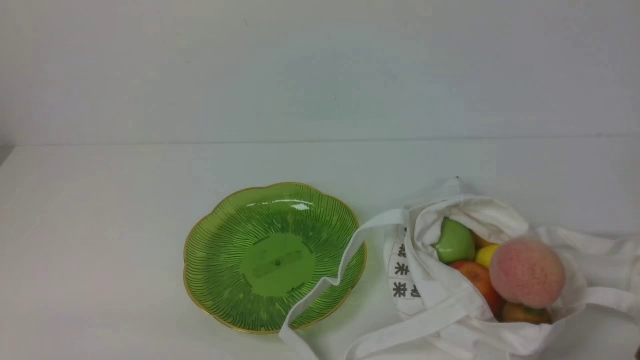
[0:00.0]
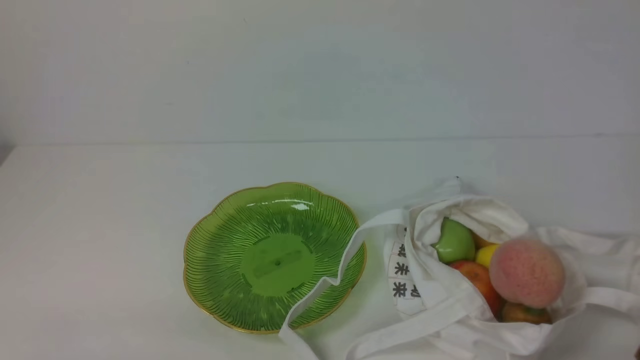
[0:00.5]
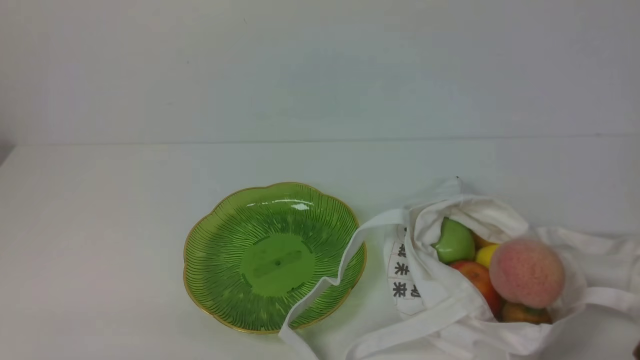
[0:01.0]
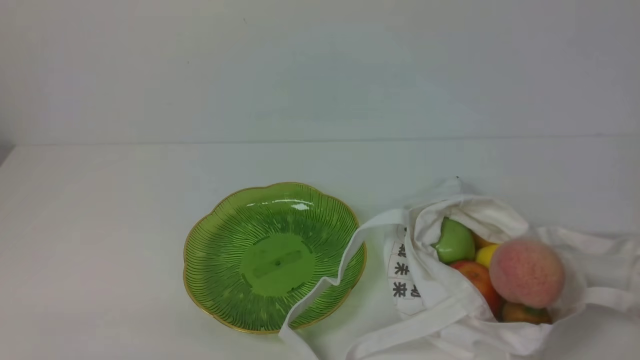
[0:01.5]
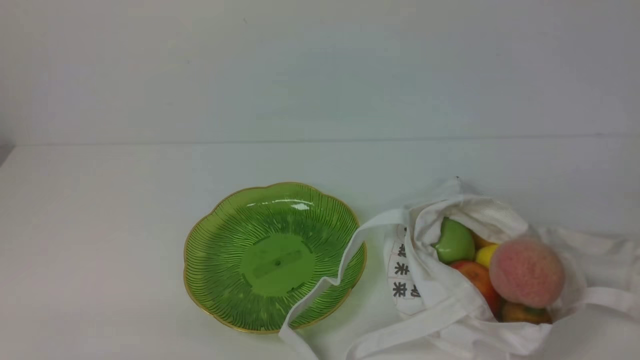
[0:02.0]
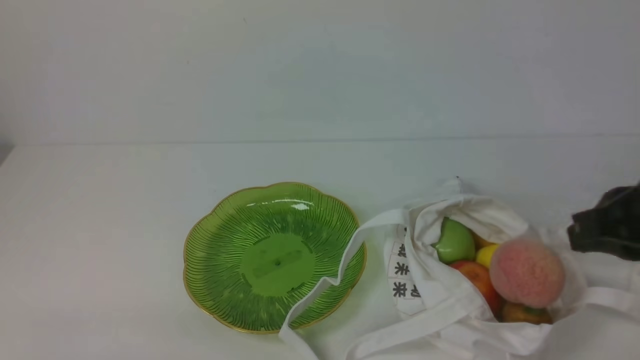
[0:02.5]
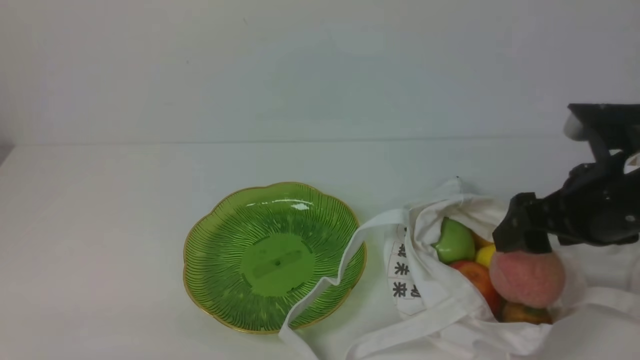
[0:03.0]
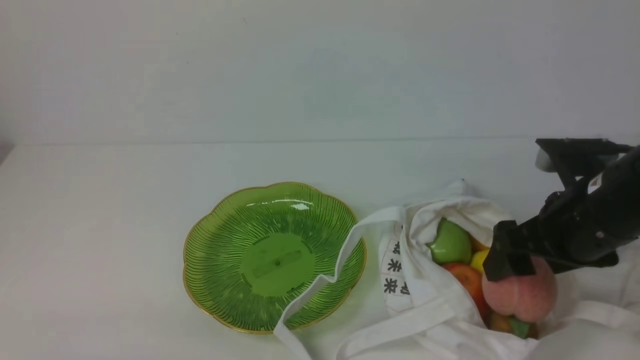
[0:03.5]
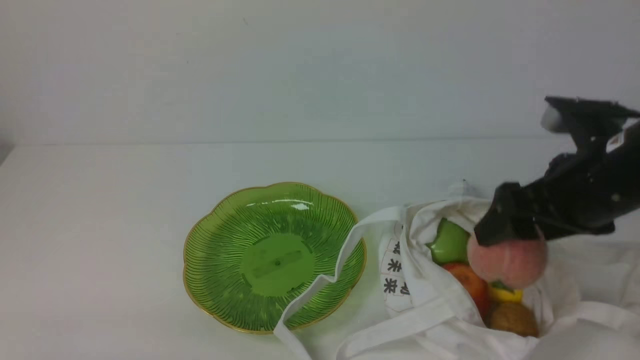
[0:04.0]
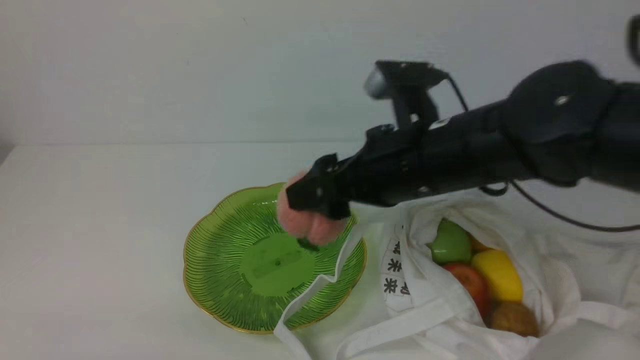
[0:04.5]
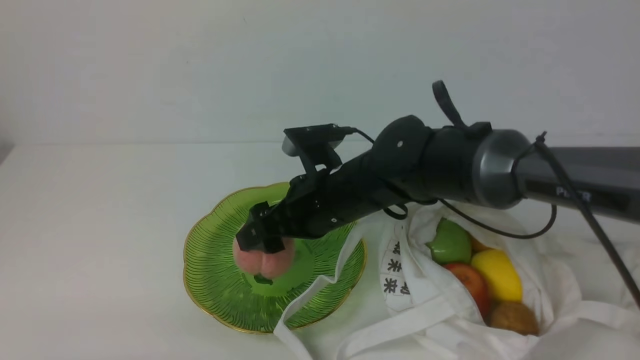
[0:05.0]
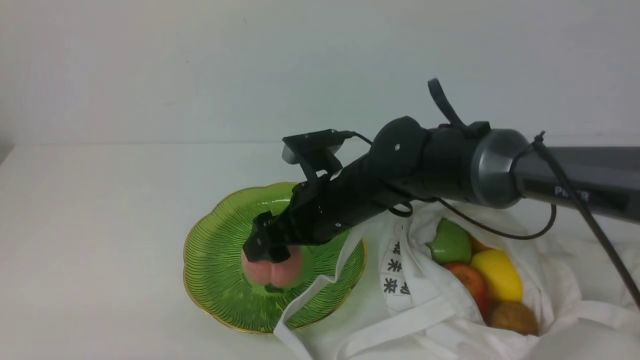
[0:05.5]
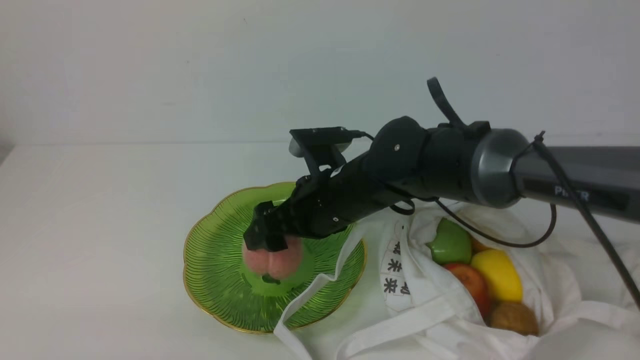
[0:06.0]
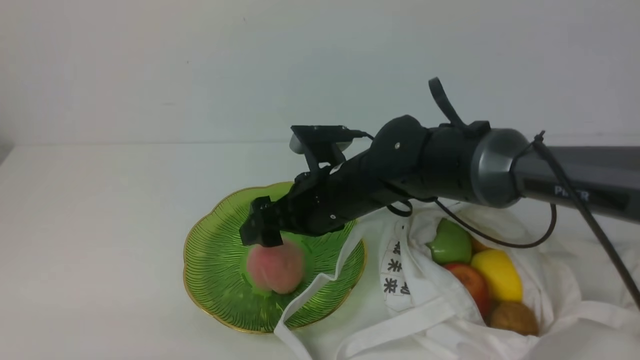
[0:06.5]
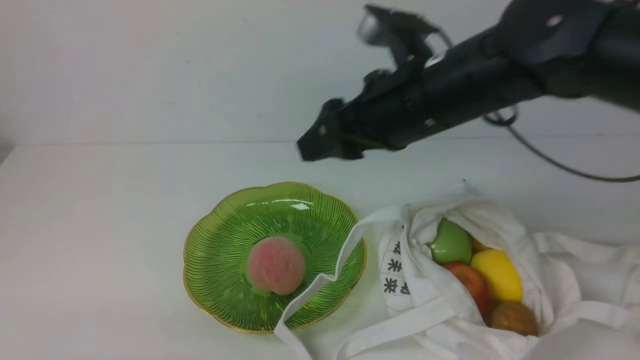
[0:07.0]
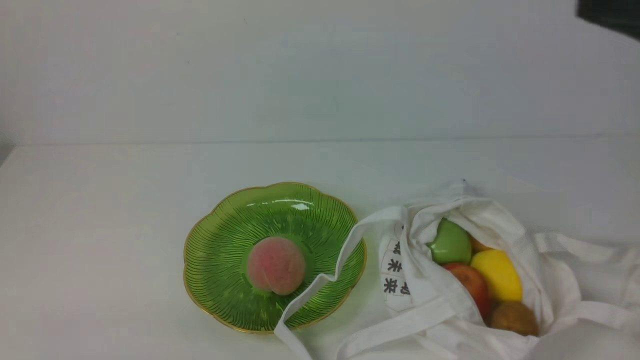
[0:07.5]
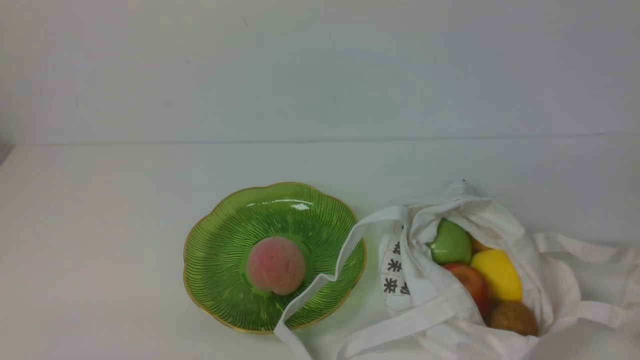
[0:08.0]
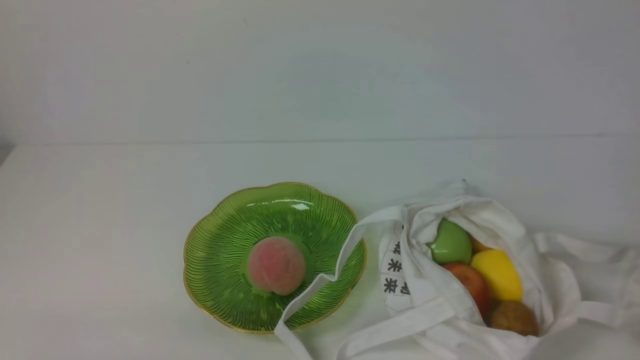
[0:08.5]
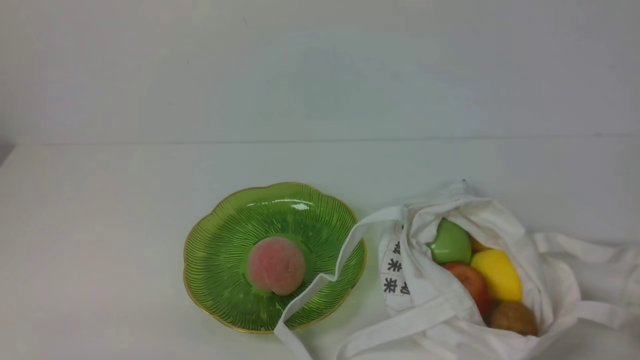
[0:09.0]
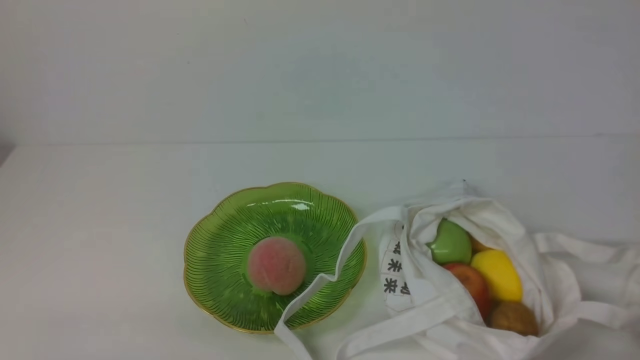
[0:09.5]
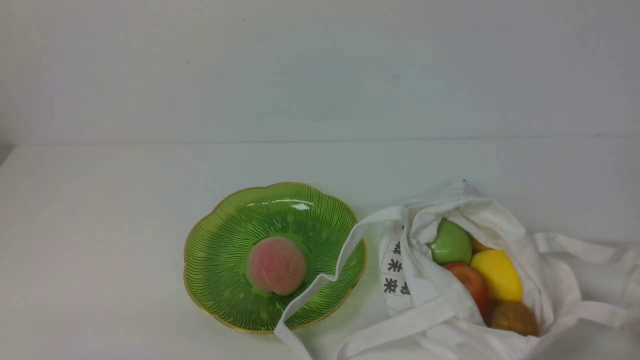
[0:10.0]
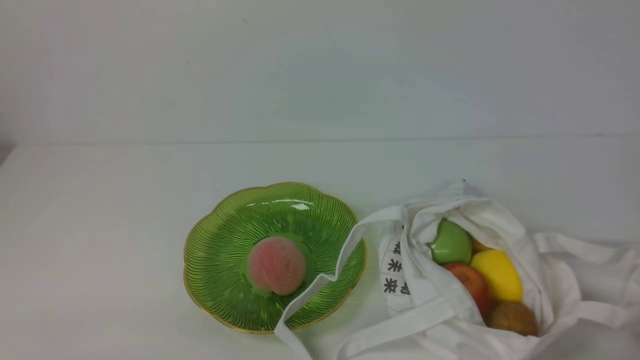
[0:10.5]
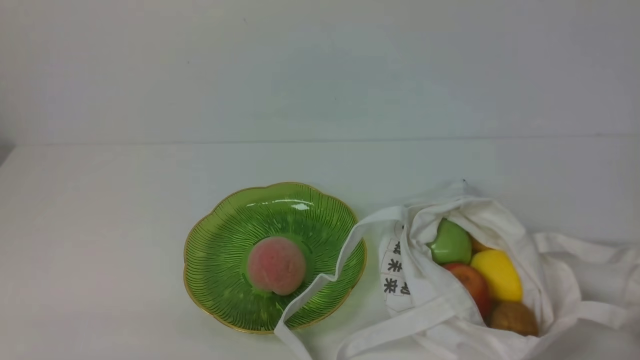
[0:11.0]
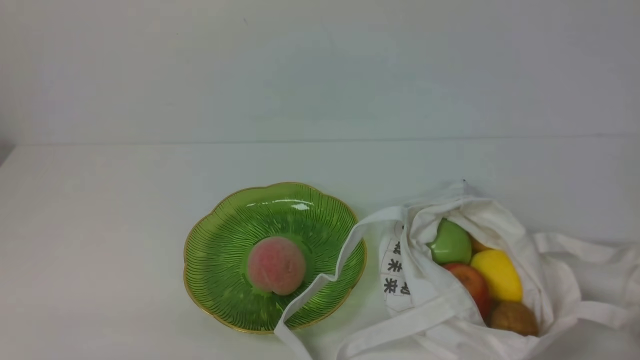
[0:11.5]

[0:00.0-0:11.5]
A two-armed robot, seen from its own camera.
Step, 0:00.0 to 0:03.5: use the right arm to grab a peach from the bag.
Step, 0:04.0 to 0:06.0: use the right arm to put the peach into the empty plate on the left.
0:02.0 to 0:04.0: The right gripper shifts roughly 20 cm forward, and opens.
0:04.0 to 0:06.0: The right gripper moves to the left and downward, roughly 20 cm.
0:06.0 to 0:07.5: The right gripper travels upward, to the right and backward by about 40 cm, and closes.
0:07.5 to 0:09.5: The right gripper moves downward, some 25 cm.
0:09.5 to 0:11.5: The two grippers keep their place.
